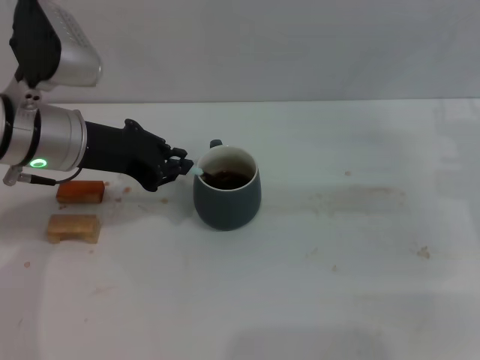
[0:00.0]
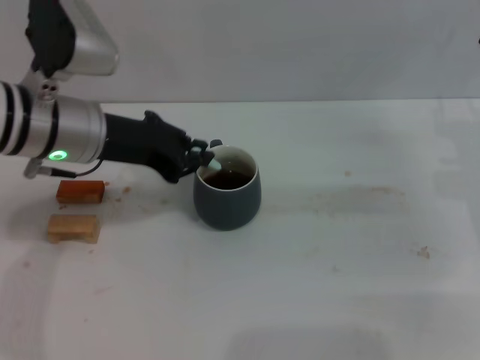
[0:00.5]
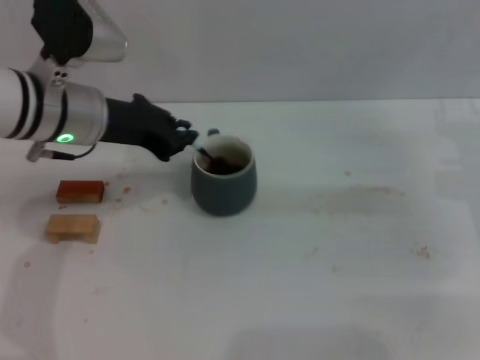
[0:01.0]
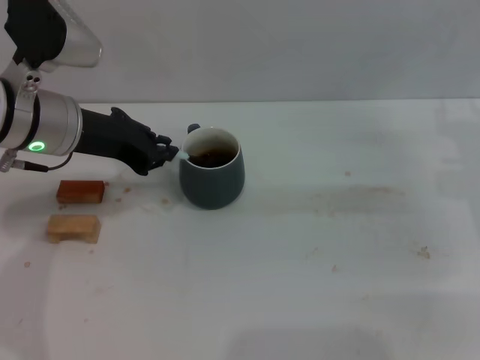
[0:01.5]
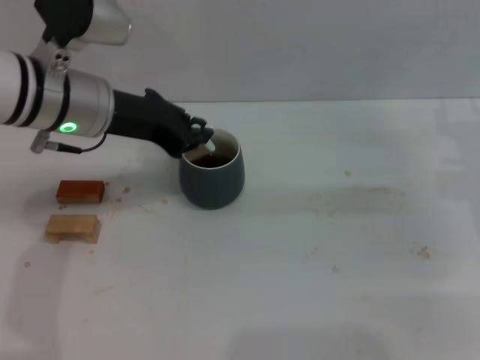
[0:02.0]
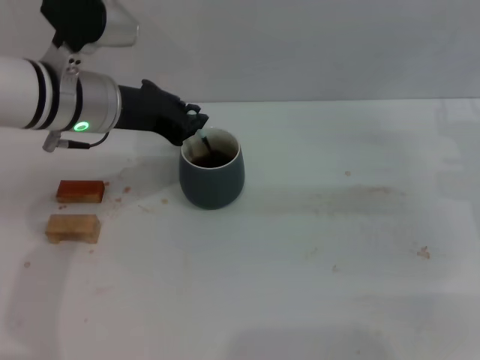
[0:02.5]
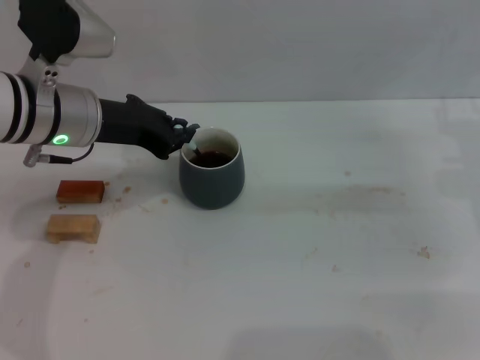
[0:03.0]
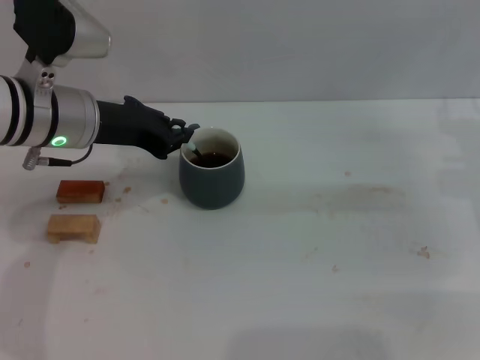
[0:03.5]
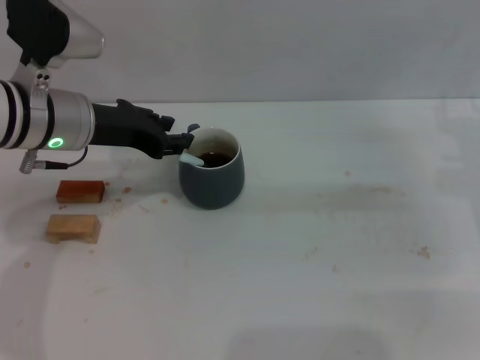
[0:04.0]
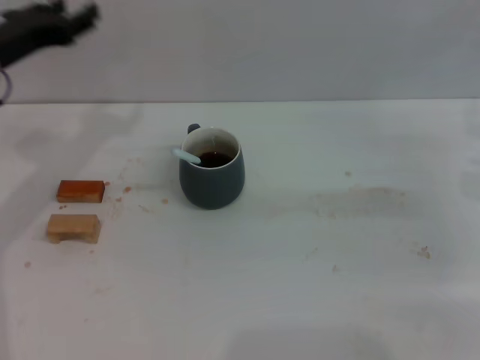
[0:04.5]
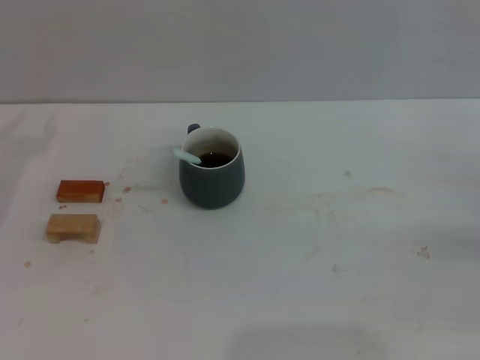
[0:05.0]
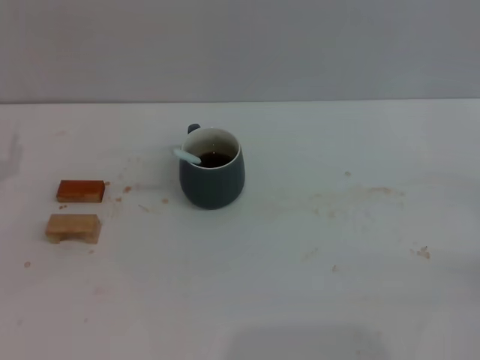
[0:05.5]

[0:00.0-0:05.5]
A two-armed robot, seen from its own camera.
Task of the whole recording: Move the grey cup to the center, lift the blue spoon, stir it three times in the cup, and put the spoon into the cup.
Step, 0:00.0 to 0:04.0: Stir the coffee in the cup with the left gripper.
0:00.0 to 0:03.5: The grippers stay close to where they were, moving slightly.
0:03.5 to 0:05.5: The left gripper travels to the left and downward by approximately 20 cm, and opens up; the right gripper travels backward, to the right and downward by approximately 15 cm.
